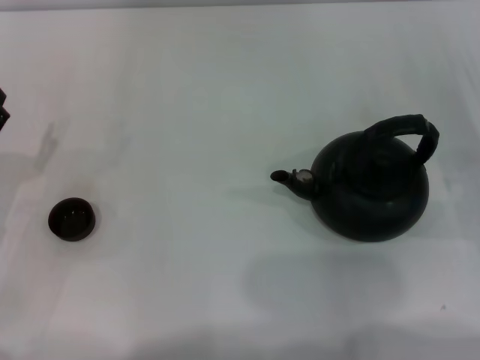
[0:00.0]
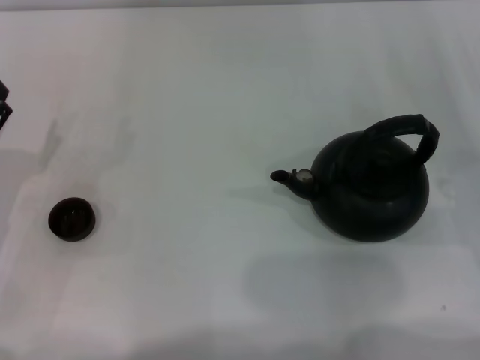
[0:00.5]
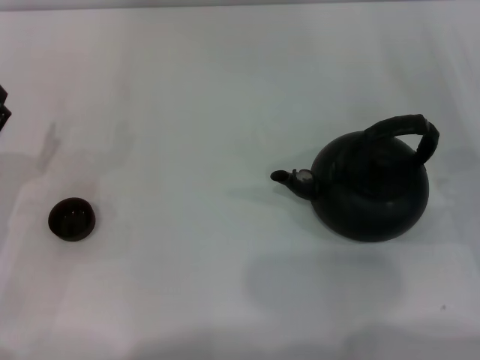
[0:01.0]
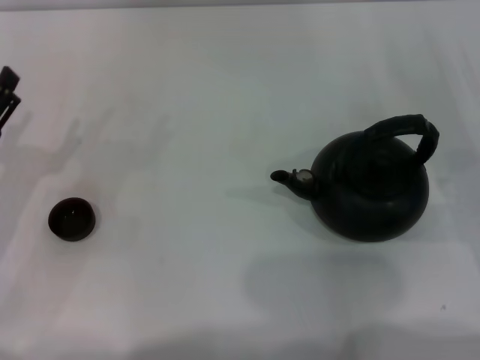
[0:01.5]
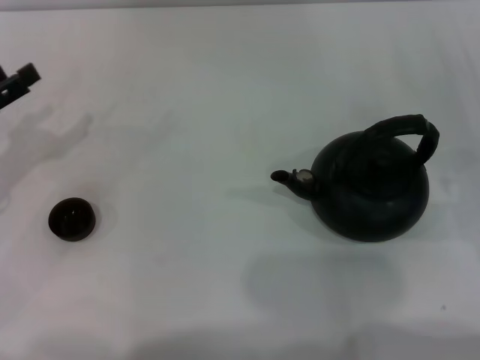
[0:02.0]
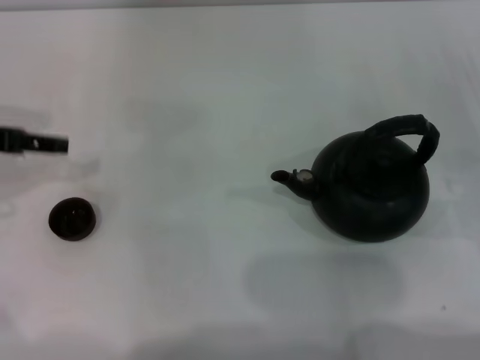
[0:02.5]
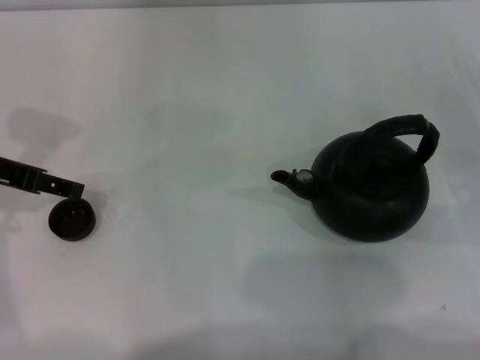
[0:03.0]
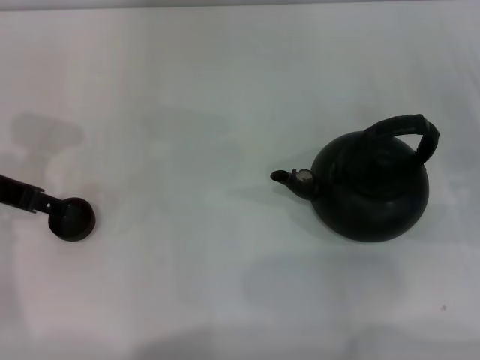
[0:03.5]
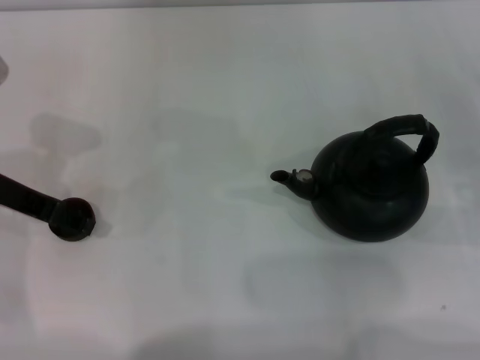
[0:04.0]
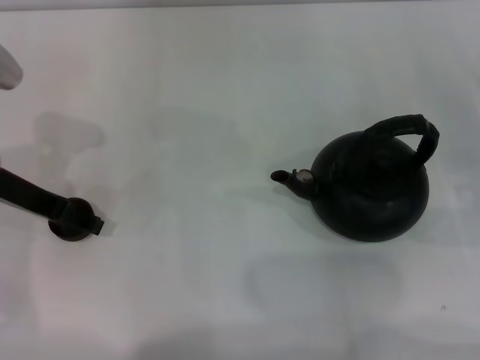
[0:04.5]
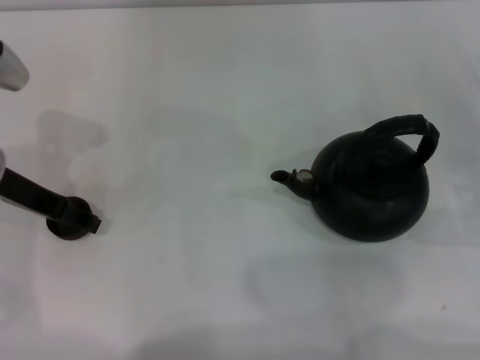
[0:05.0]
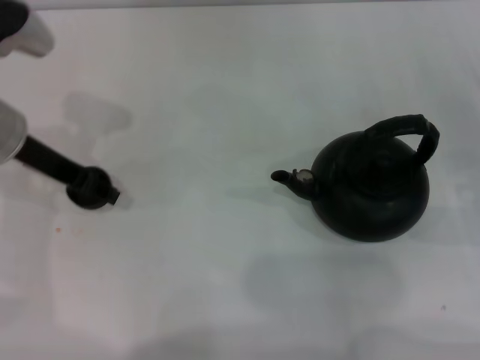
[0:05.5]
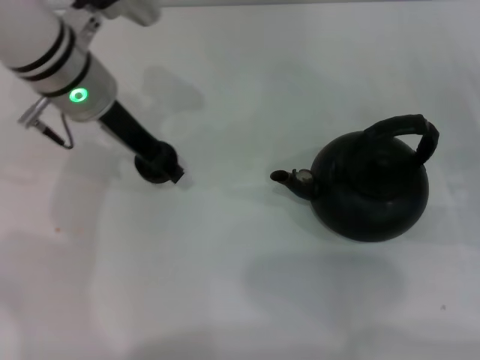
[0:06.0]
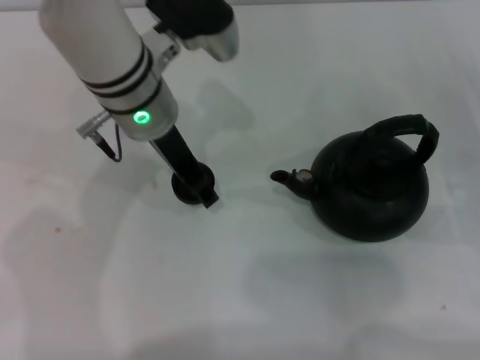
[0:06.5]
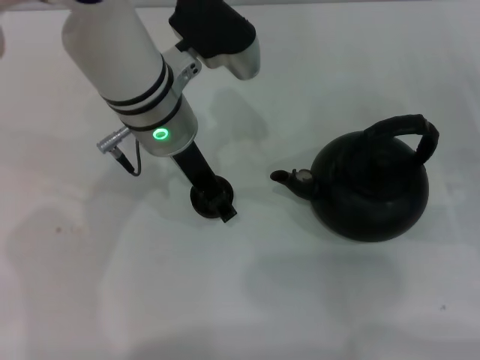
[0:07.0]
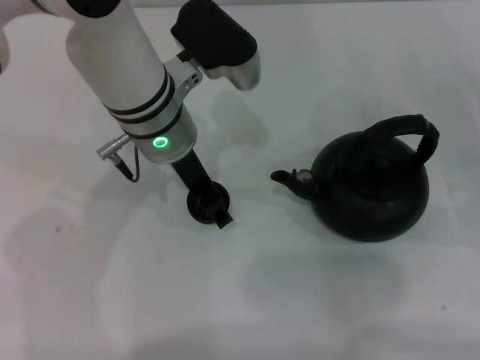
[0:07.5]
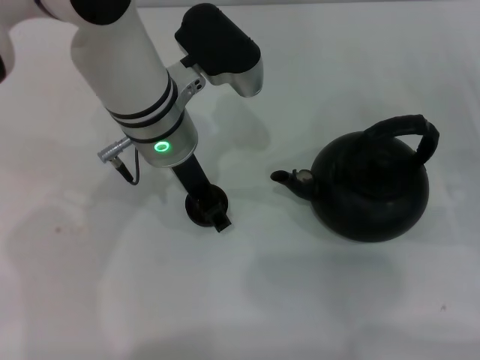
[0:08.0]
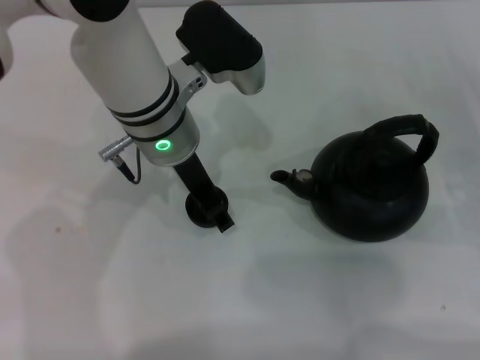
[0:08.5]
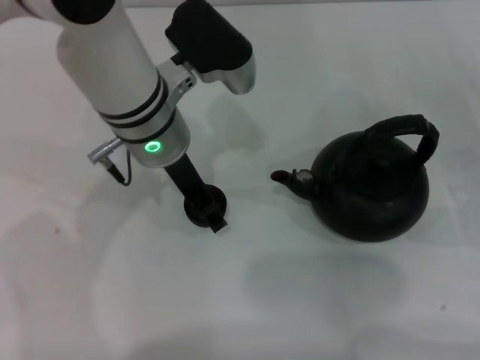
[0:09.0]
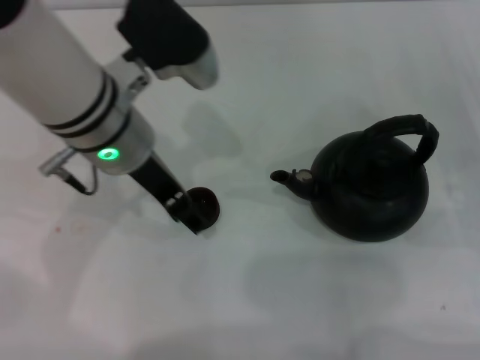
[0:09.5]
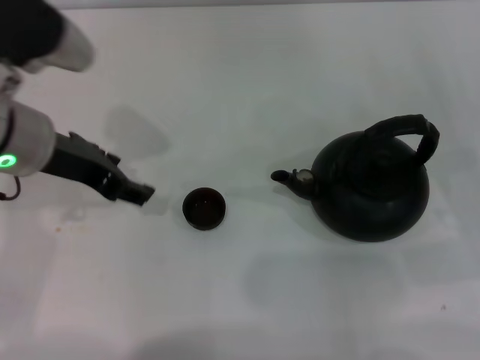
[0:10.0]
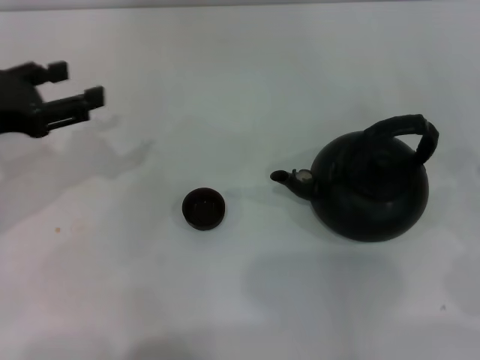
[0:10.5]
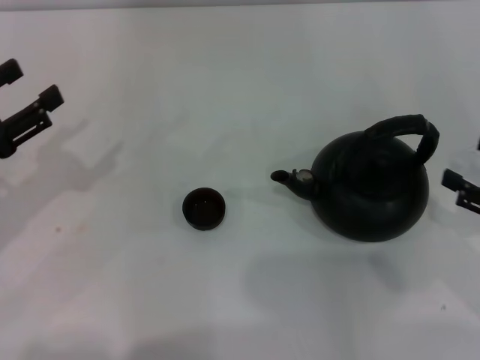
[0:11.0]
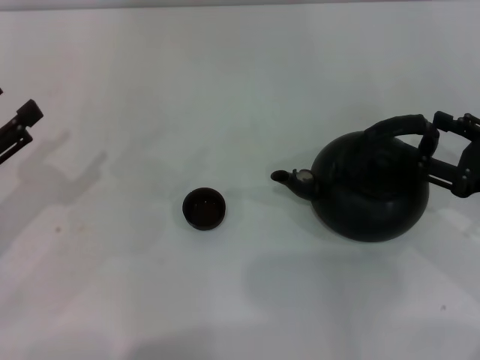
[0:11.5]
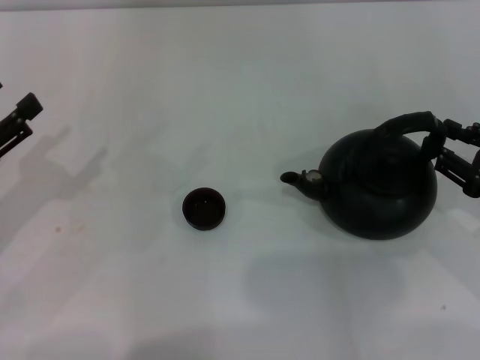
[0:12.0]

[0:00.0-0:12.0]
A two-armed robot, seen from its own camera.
Task of the whole recording: Grasp the handle of the teapot with one hand and pour tea into the teacup.
Step, 0:00.0 to 0:05.5: Pick up the teacup with the left gripper.
Step, 0:06.0 to 0:09.5: Place the teacup in the center of view with the left gripper.
0:00.0 to 0:02.0: The left gripper shifts roughly 10 cm upward and forward.
0:02.0 to 0:04.0: The left gripper is displaced to the right and upward by some 10 cm.
0:04.0 to 0:06.0: The left gripper shifts roughly 15 cm to the right and forward, and closes.
0:06.0 to 0:08.0: The left gripper travels to the right by some 5 cm.
0:08.0 to 0:10.0: The left gripper moves to the left, about 10 cm.
0:10.0 to 0:12.0: The left gripper is displaced to the left, backward and downward by about 20 cm. The right gripper closes.

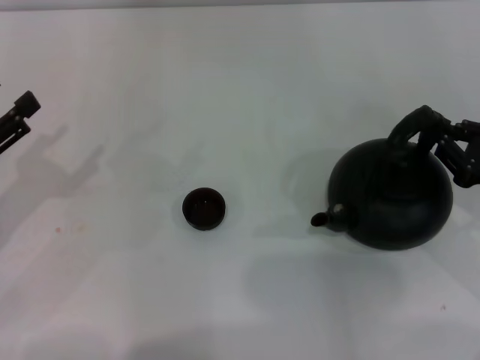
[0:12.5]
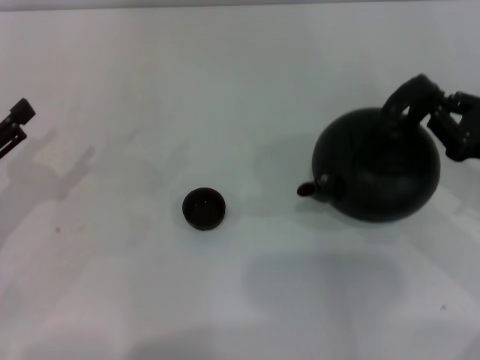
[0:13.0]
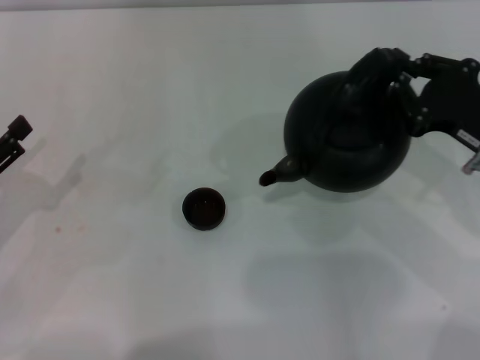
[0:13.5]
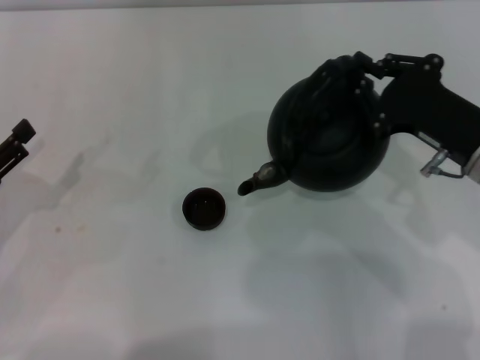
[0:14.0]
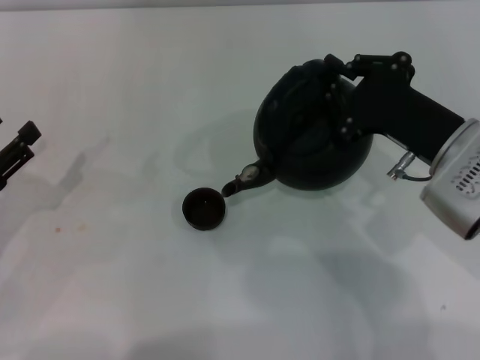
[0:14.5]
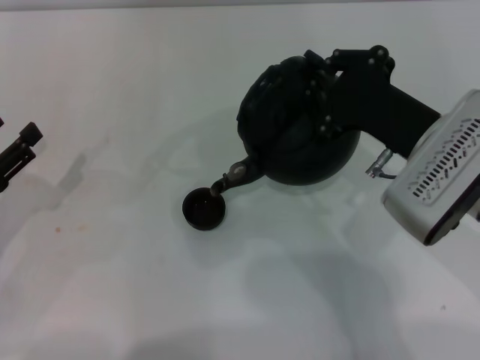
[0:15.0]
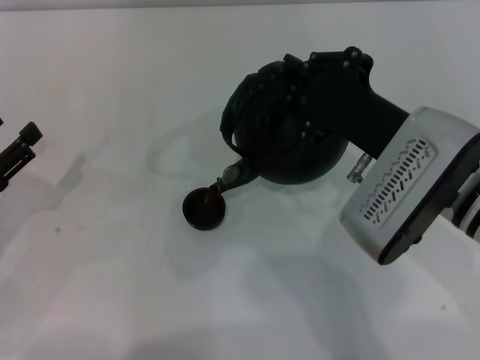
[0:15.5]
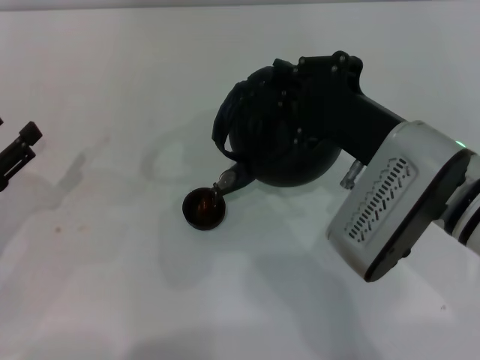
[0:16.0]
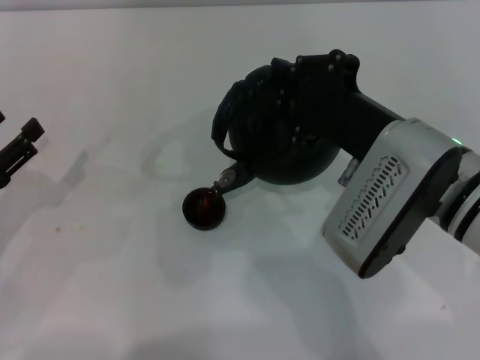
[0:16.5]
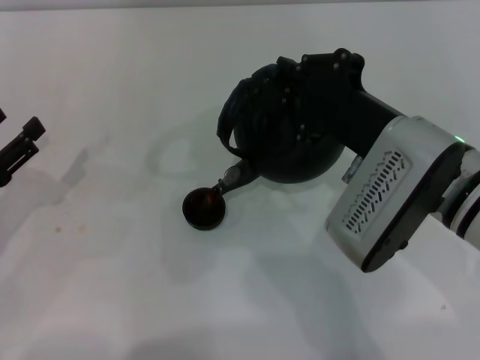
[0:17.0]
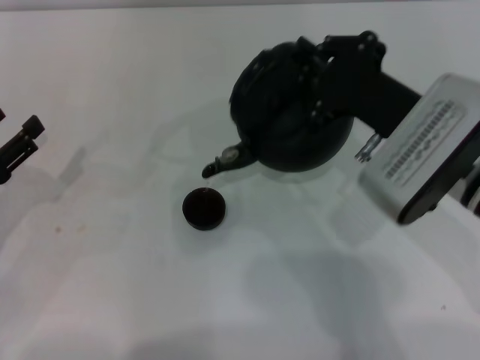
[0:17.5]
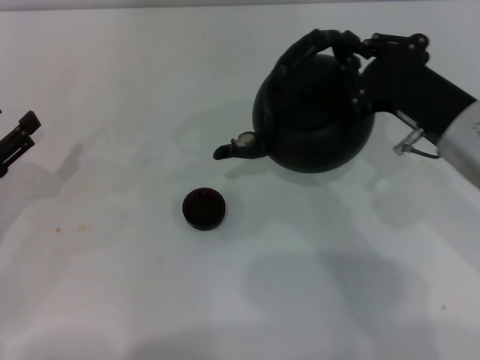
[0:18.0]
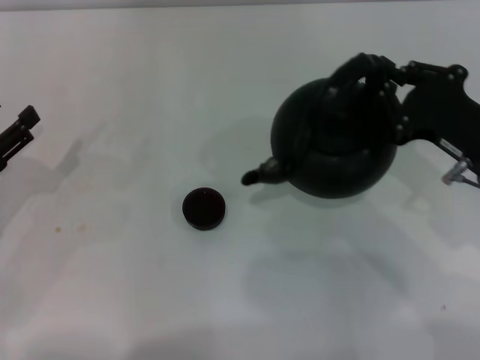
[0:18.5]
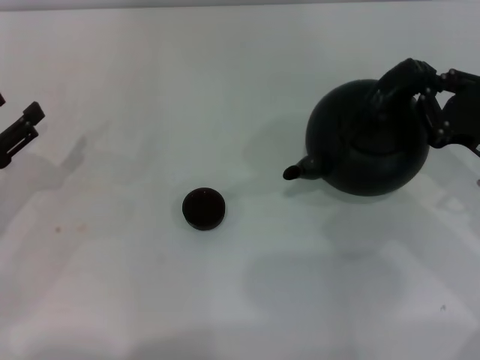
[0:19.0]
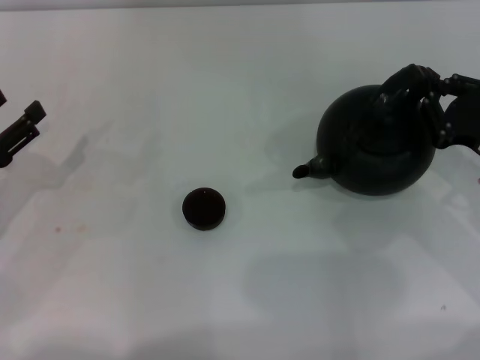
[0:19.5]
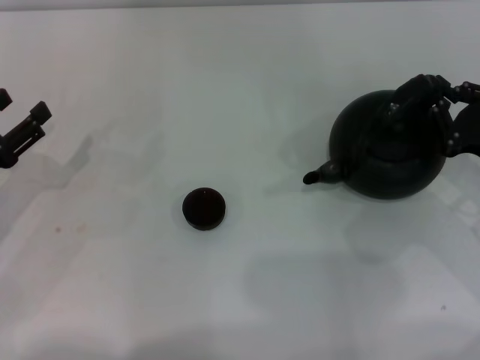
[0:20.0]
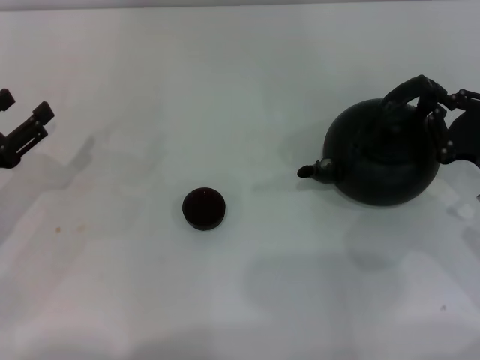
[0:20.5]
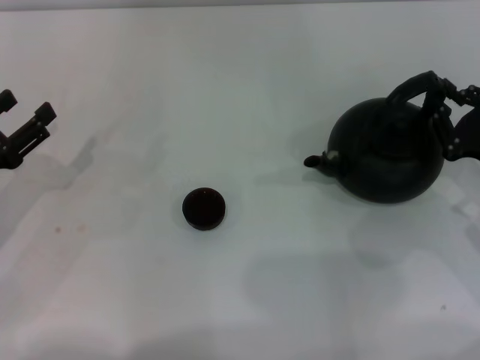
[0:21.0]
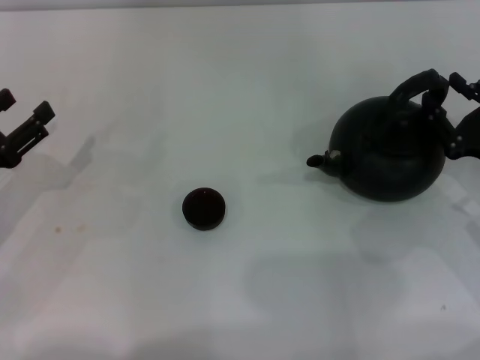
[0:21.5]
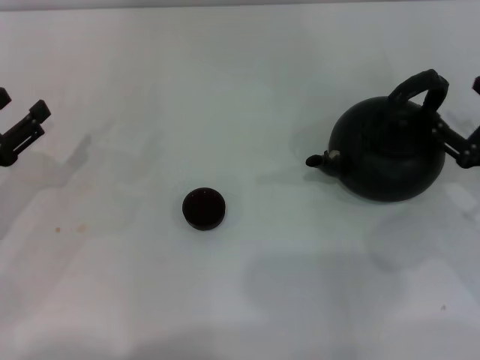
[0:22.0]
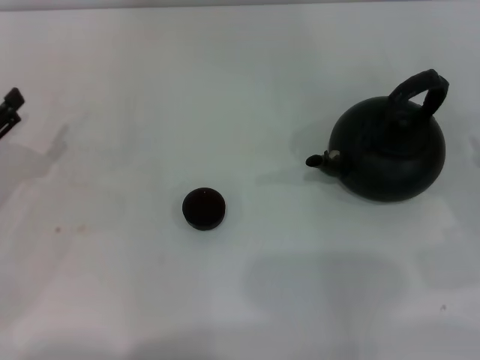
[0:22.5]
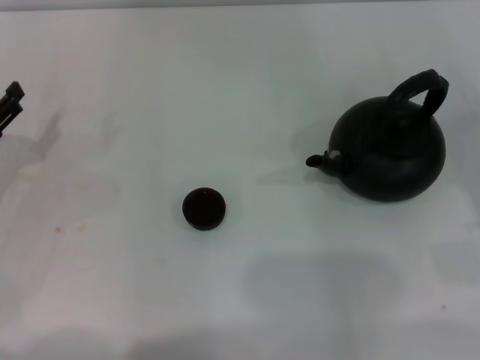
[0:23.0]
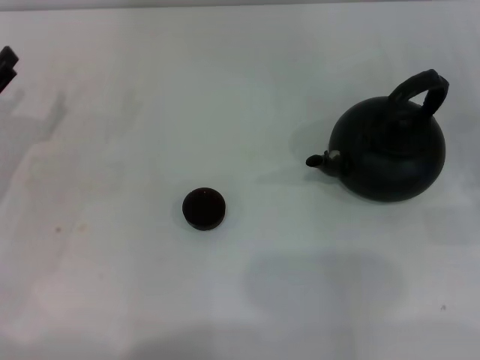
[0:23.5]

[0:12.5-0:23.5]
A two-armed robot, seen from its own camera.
Task of the whole recording: Grasp the handle of the teapot with one hand and pour tea into the teacup.
Step, 0:14.5 to 0:17.5: Pour tea into the teacup with the right gripper.
Step, 0:18.0 to 0:22.0: Put down the teapot with the right gripper.
0:12.5 to 0:14.5: The right gripper travels to the left by approximately 15 cm.
0:14.5 to 0:16.0: The right gripper heads to the left, covering about 5 cm.
0:16.0 to 0:18.0: The right gripper travels to the right by roughly 5 cm.
0:18.0 to 0:20.0: The right gripper travels to the right and downward by approximately 15 cm.
0:20.0 to 0:21.5: The right gripper opens.
0:21.5 to 0:23.5: The right gripper travels to the right by about 10 cm, and opens.
